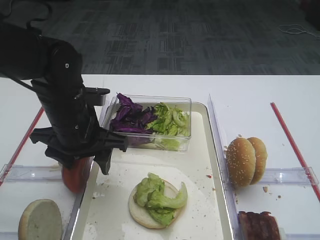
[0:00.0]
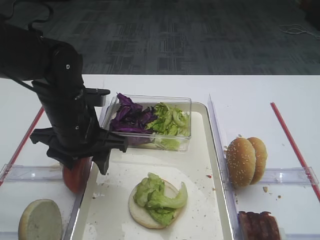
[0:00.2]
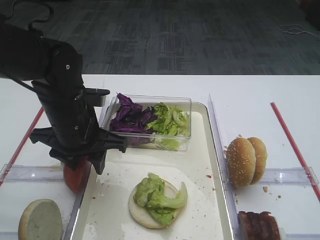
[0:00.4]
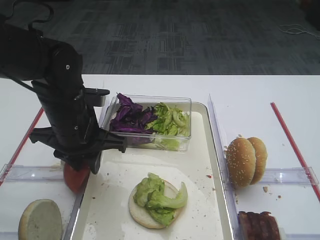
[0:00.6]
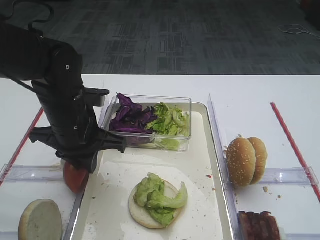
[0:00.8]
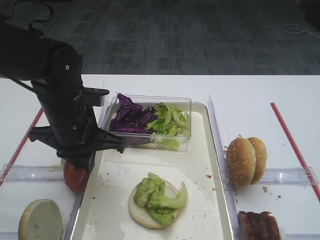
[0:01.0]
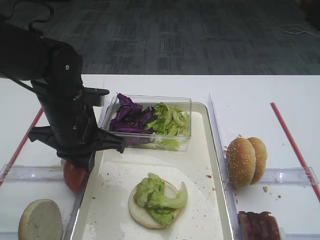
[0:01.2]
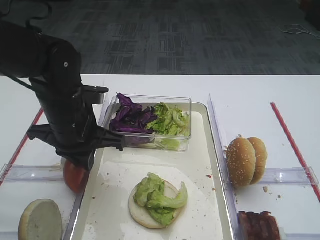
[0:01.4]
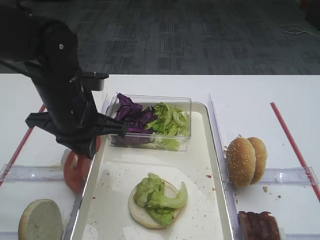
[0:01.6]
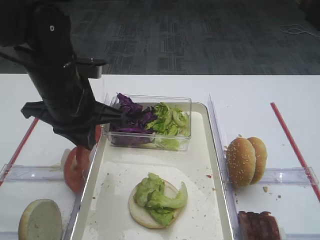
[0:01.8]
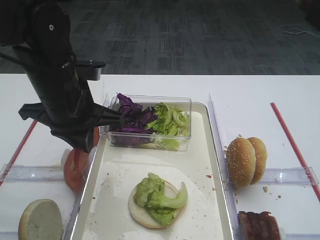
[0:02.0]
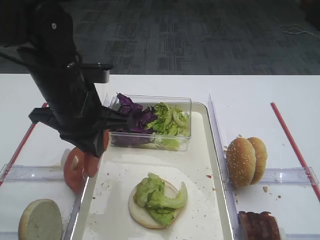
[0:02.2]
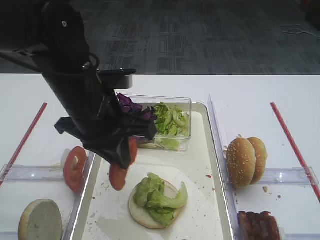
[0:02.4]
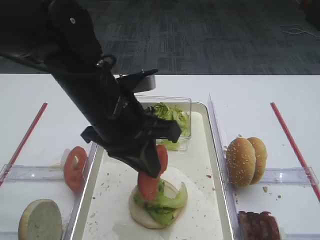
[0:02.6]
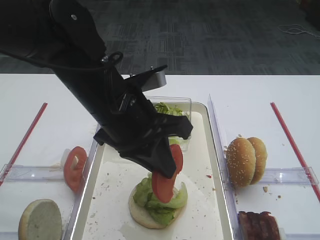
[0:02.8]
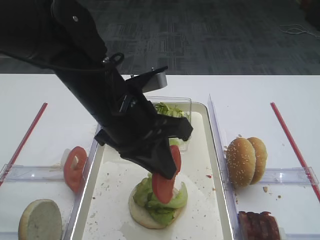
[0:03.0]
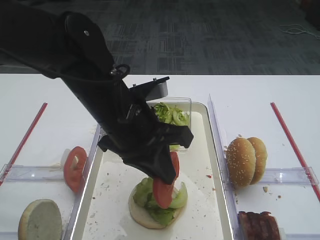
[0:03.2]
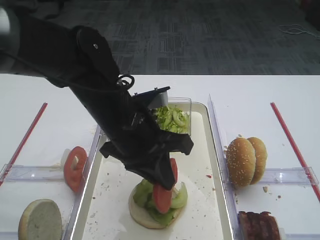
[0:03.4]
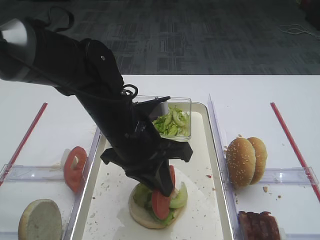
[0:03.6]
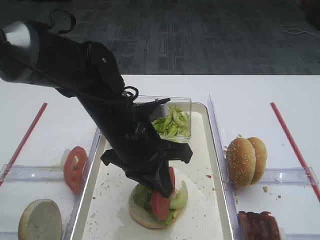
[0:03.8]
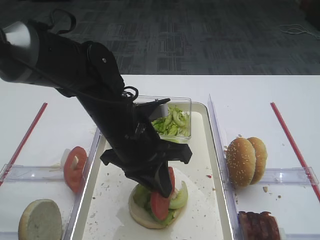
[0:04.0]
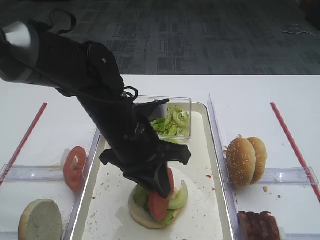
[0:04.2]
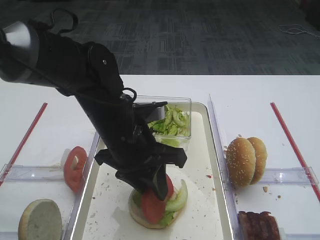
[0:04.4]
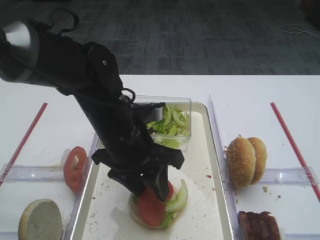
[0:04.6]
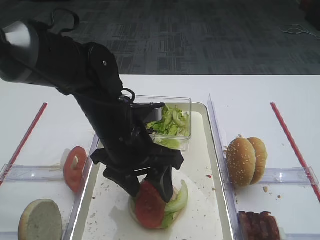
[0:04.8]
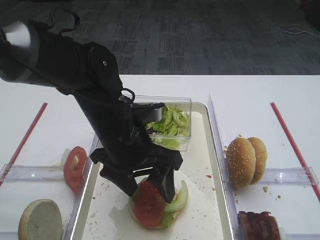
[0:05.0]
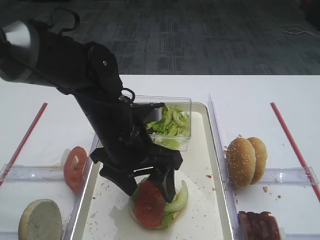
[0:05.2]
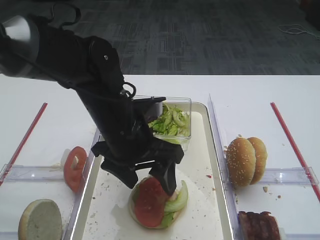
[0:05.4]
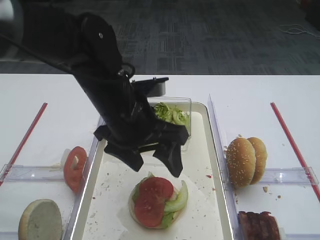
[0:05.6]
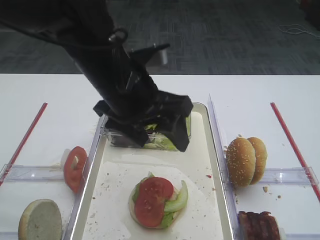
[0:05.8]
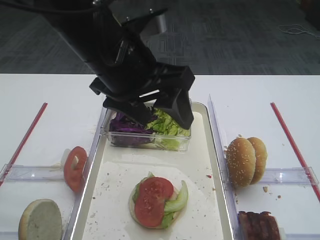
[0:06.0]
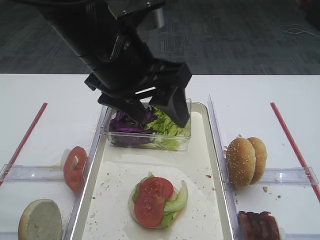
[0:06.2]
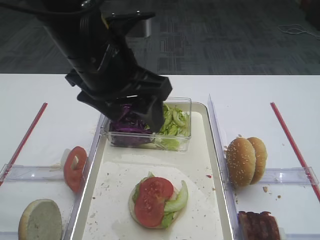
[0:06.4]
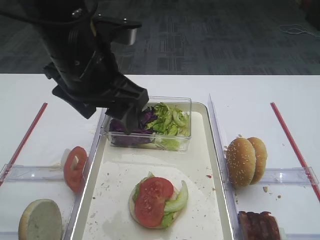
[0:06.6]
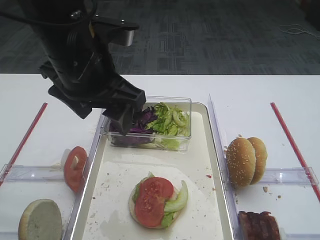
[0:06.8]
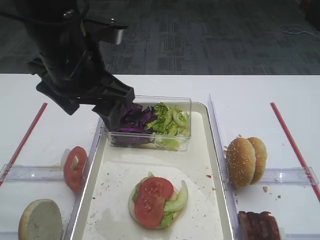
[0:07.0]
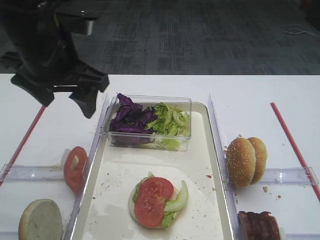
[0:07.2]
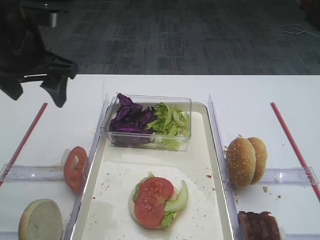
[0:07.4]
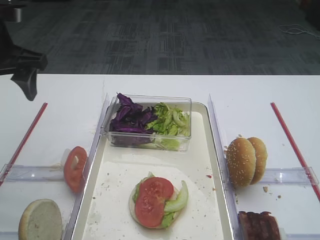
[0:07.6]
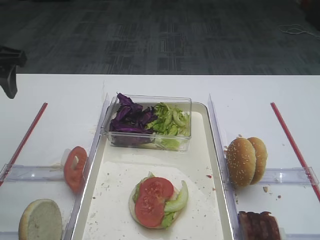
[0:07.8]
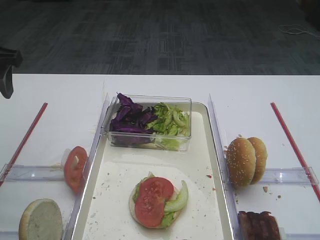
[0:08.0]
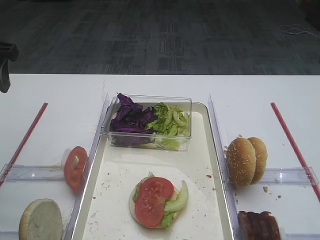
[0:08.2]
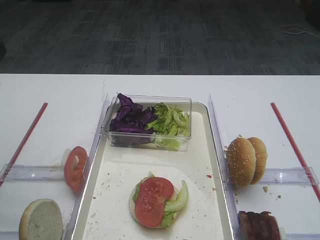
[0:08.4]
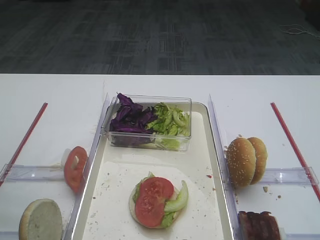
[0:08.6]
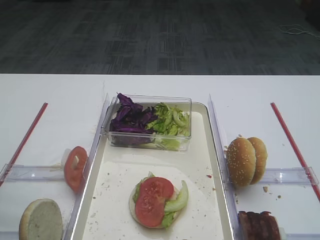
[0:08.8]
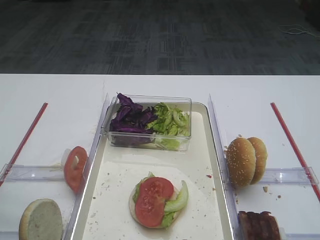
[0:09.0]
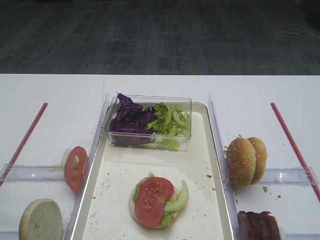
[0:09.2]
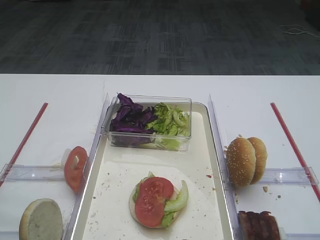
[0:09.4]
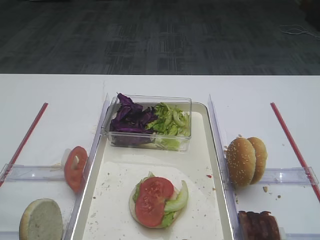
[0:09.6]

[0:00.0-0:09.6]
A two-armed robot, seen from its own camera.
Step, 0:02.0 to 0:05.6: Place the tomato slice on the lettuce leaf with the left gripper.
0:00.0 to 0:01.6: The left gripper closes.
0:01.6 to 0:03.2: The left gripper heads to the right, covering about 10 cm.
0:03.2 to 0:04.8: The left gripper opens its fingers.
0:04.8 to 0:06.4: The left gripper moves upward, some 15 cm.
0:06.4 to 0:08.0: The left gripper goes about 20 cm to the left; the right gripper closes its fingers.
0:08.0 to 0:09.6: The left gripper goes about 25 cm backward.

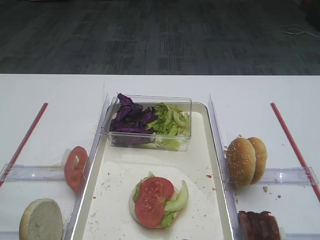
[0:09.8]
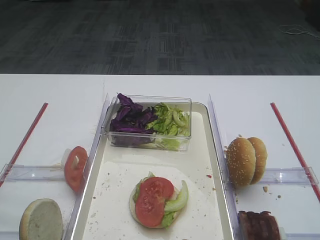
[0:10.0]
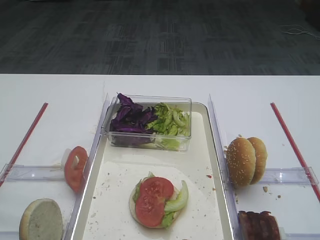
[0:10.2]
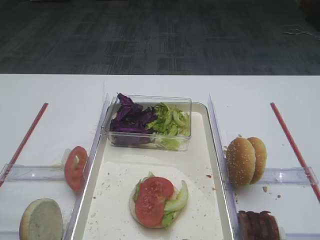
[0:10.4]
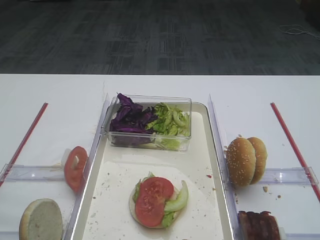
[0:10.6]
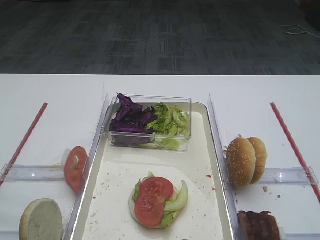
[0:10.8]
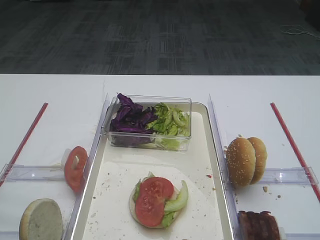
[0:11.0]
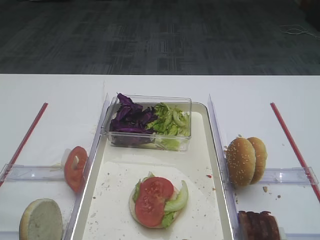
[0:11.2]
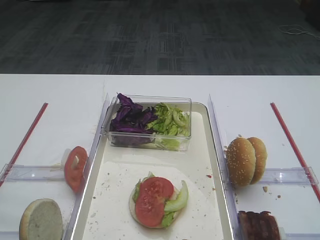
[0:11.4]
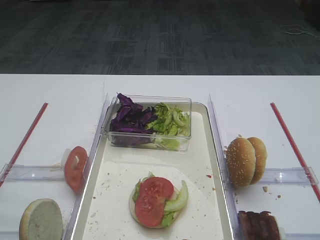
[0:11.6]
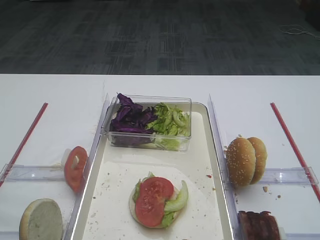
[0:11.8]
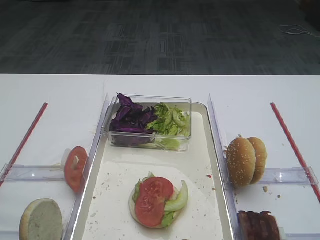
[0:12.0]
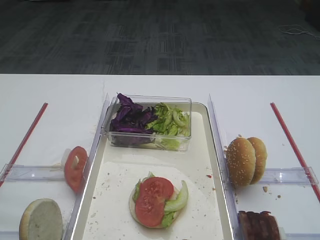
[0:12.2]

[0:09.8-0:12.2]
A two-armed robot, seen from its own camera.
0:11.0 to 0:12.2: Both grippers stay about where they are.

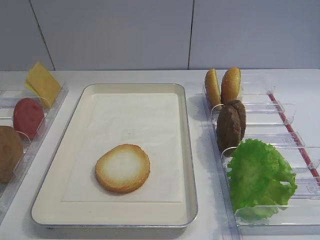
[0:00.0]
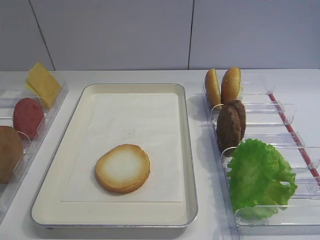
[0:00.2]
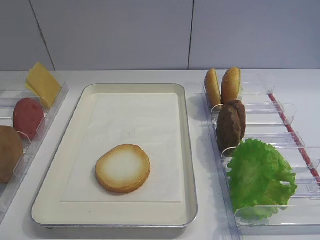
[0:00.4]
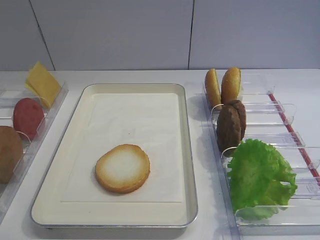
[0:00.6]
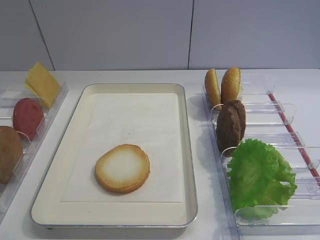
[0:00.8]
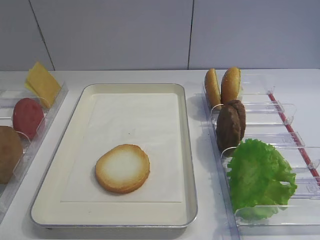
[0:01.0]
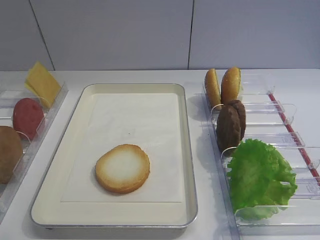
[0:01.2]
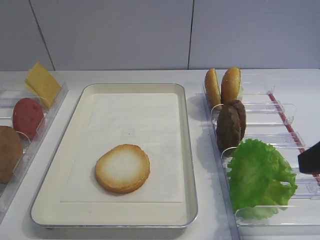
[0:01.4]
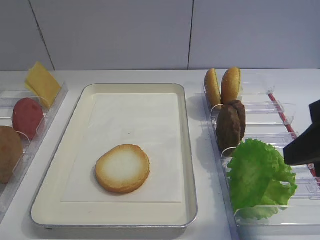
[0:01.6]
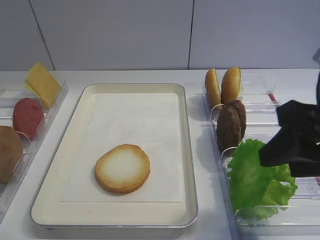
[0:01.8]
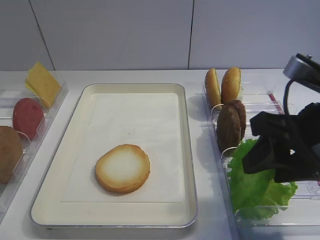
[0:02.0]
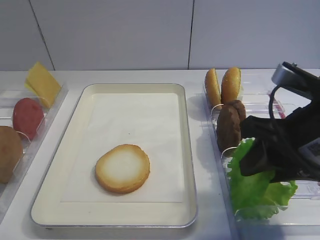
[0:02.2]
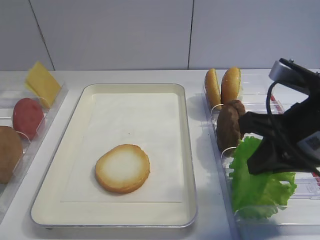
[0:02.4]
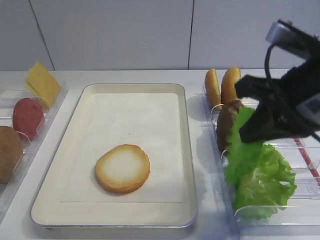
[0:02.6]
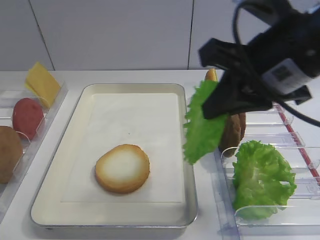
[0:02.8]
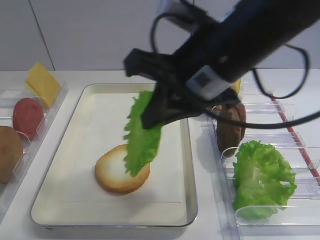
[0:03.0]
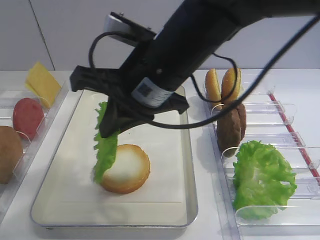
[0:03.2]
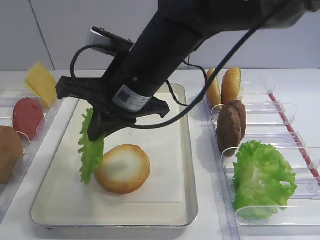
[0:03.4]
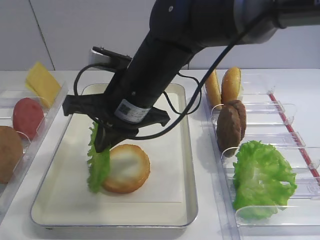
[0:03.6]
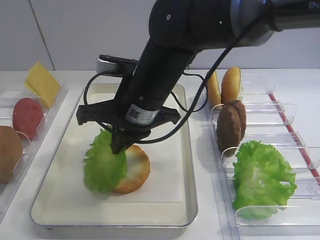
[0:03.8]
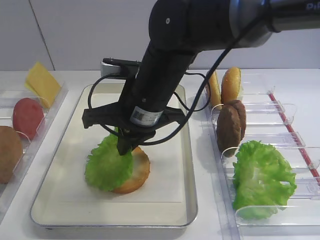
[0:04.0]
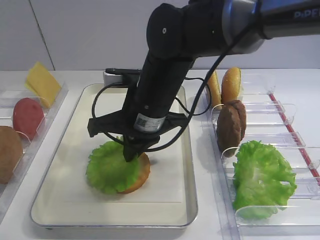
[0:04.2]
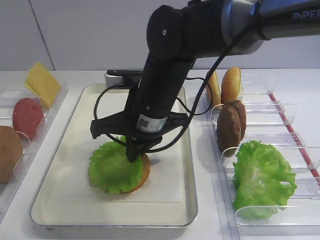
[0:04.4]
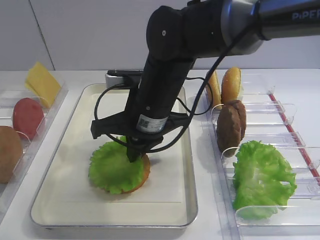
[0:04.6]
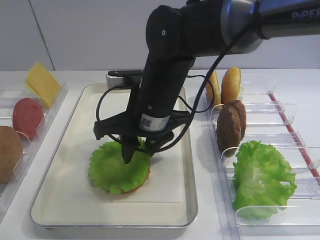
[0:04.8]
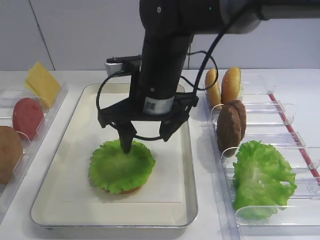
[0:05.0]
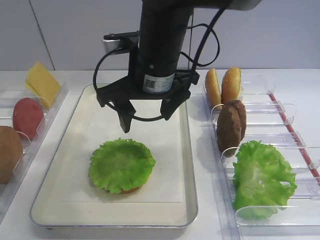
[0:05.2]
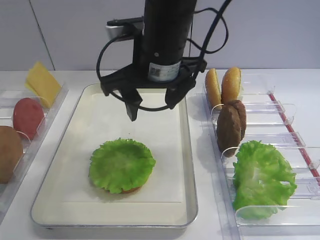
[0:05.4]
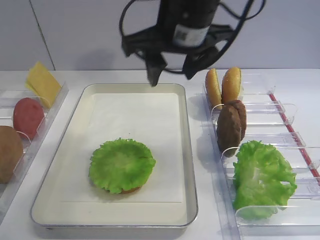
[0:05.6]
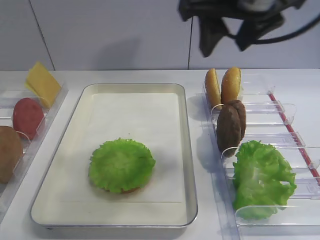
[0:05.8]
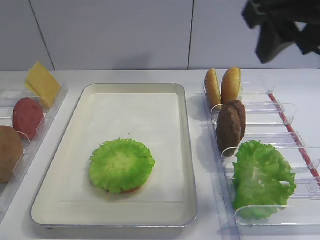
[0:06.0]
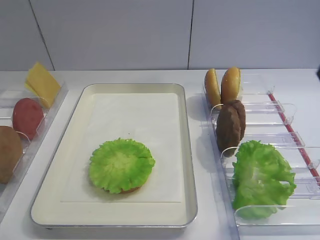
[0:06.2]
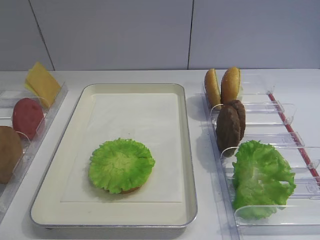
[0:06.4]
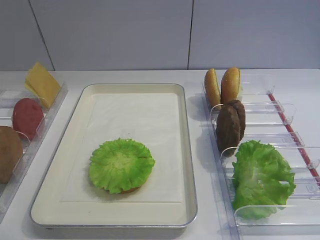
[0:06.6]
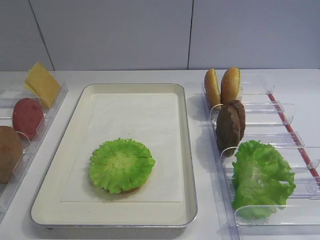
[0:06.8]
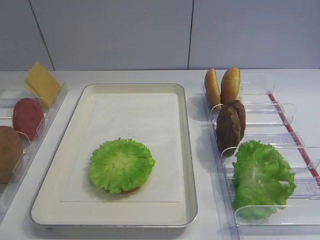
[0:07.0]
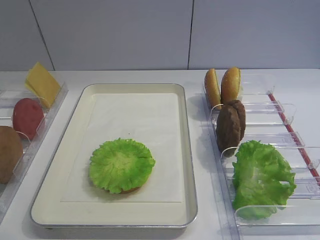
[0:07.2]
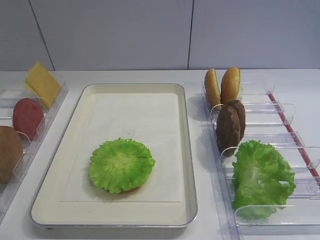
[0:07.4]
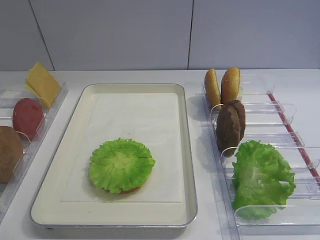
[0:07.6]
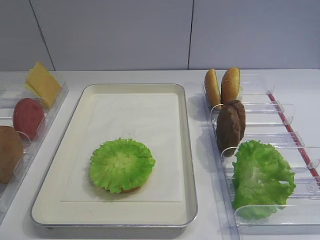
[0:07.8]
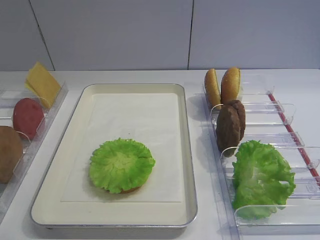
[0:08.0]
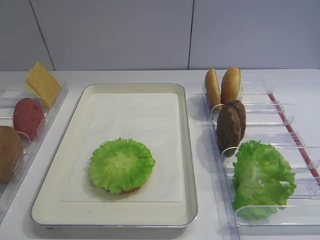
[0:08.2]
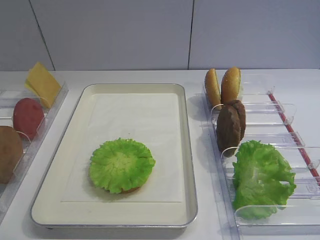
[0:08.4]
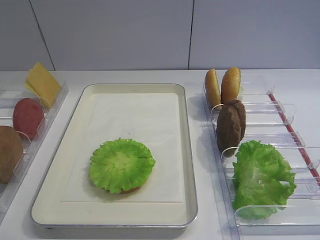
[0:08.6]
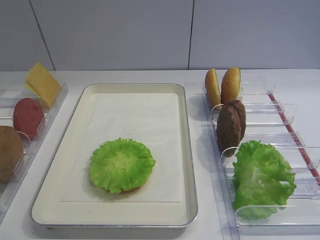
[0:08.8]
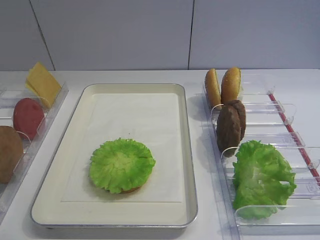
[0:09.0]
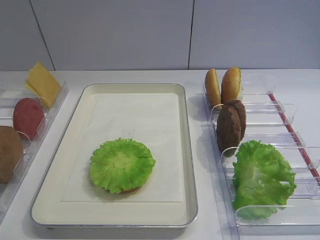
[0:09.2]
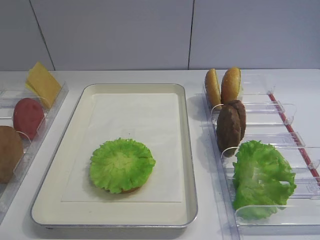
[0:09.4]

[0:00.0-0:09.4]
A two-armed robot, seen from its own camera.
Step, 0:00.0 to 0:02.4: Pick up the lettuce leaf with the right gripper.
Step, 0:02.6 to 0:04.8: Place the lettuce leaf on the bread slice with the right gripper.
0:01.6 to 0:03.2: The right gripper travels to the left and forward by approximately 25 cm, and closes.
0:03.2 to 0:04.8: The right gripper goes roughly 5 cm downward, and opens.
0:04.8 to 0:06.2: The right gripper moves to the right, upward and backward, roughly 30 cm.

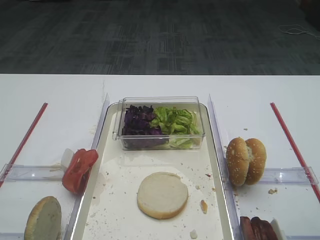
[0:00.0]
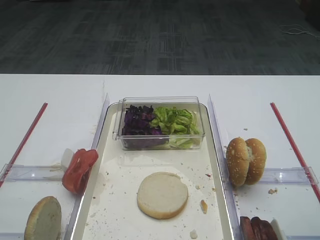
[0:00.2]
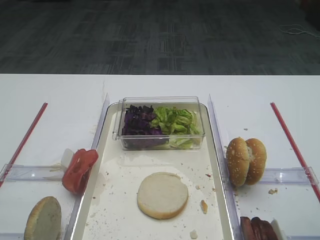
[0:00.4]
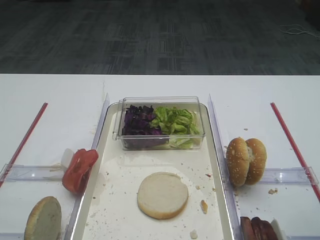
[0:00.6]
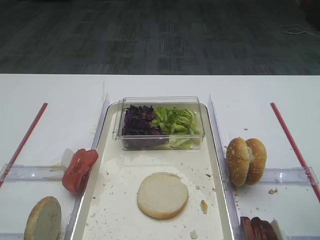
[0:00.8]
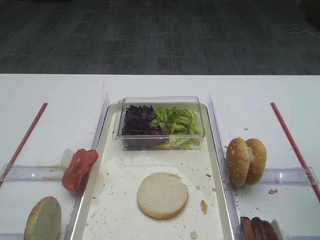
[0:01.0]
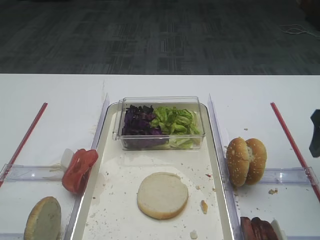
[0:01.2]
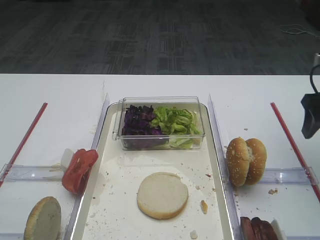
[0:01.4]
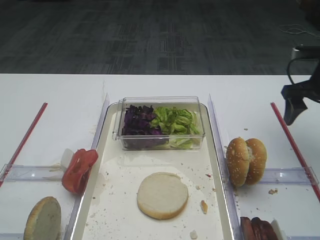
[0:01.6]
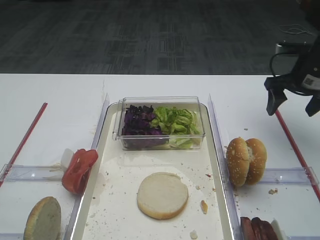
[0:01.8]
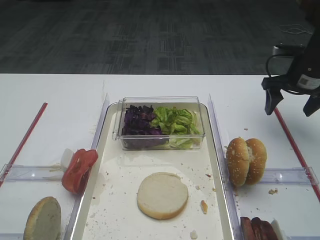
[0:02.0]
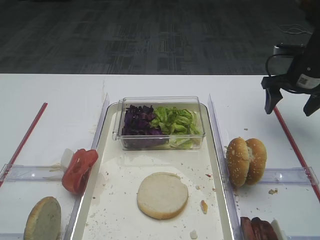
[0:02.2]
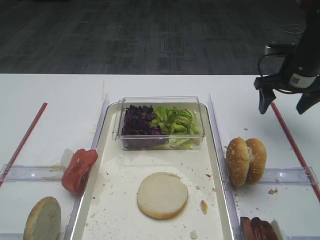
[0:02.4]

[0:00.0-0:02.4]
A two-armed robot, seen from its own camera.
0:00.0 to 0:01.2: The right gripper moves forward, about 15 cm.
0:01.2 to 0:02.4: The right gripper heads forward, covering about 15 cm.
